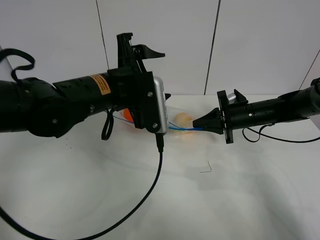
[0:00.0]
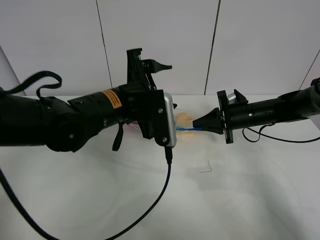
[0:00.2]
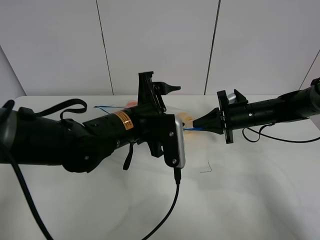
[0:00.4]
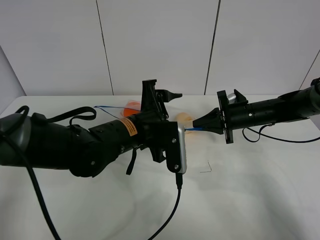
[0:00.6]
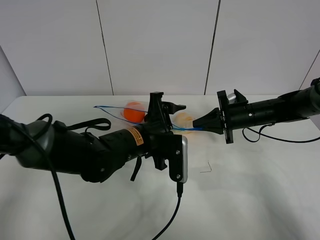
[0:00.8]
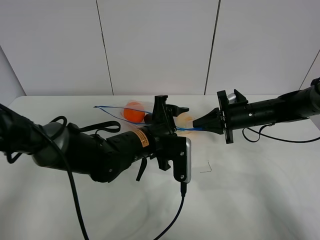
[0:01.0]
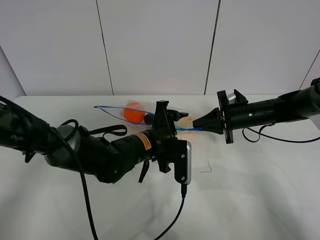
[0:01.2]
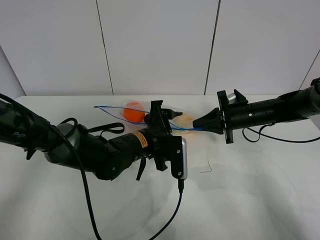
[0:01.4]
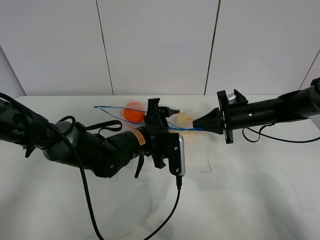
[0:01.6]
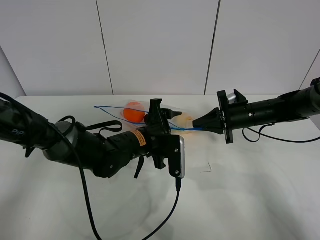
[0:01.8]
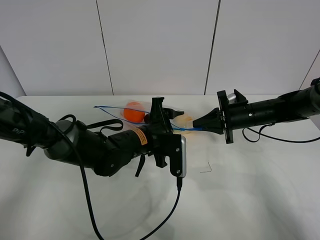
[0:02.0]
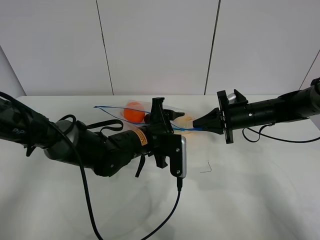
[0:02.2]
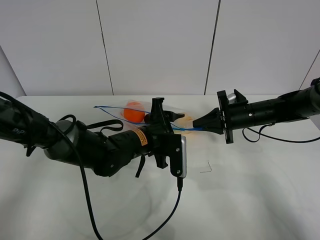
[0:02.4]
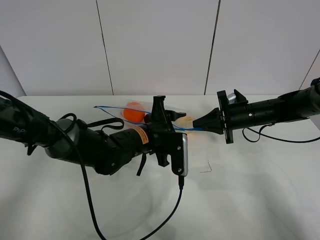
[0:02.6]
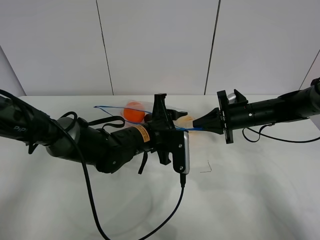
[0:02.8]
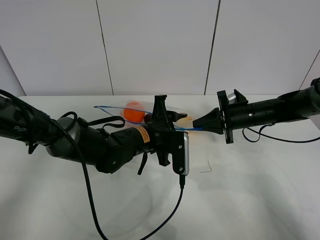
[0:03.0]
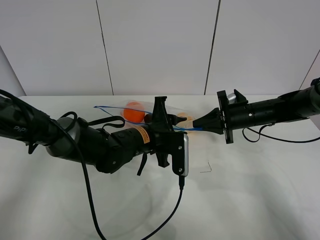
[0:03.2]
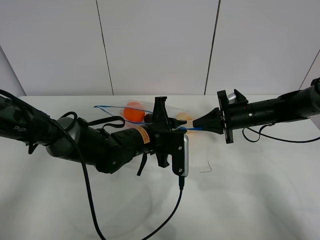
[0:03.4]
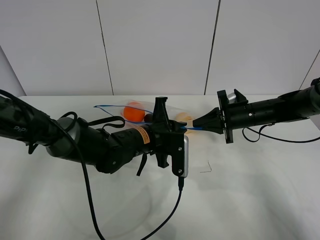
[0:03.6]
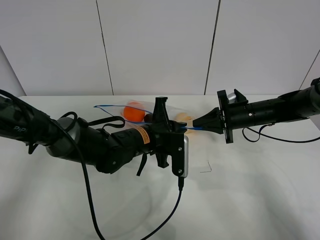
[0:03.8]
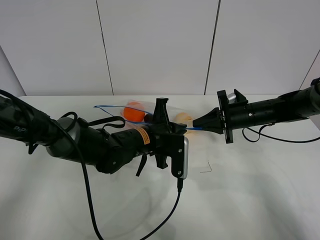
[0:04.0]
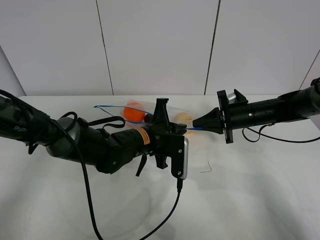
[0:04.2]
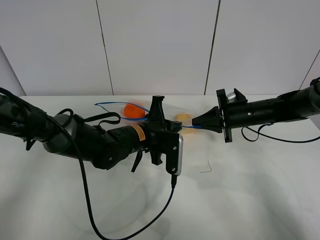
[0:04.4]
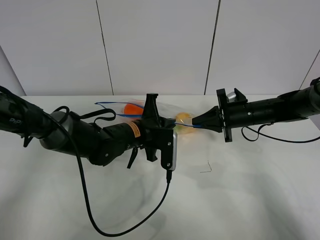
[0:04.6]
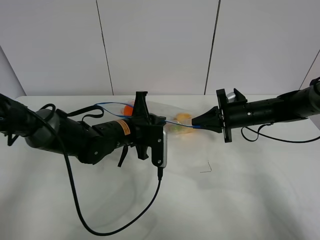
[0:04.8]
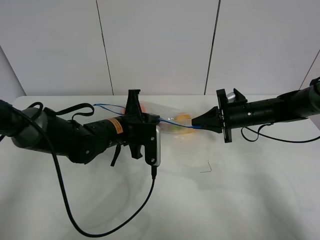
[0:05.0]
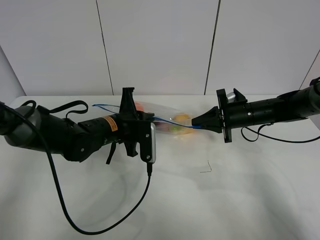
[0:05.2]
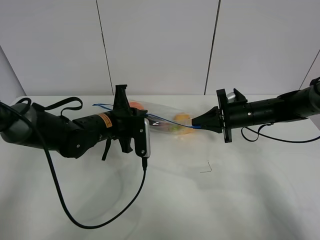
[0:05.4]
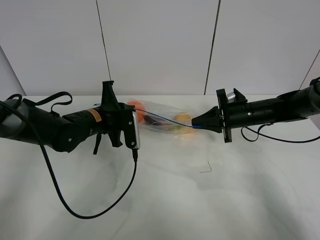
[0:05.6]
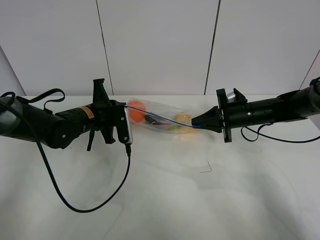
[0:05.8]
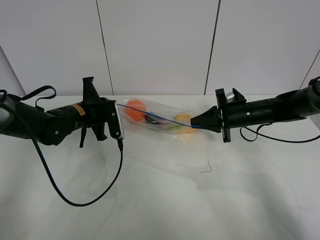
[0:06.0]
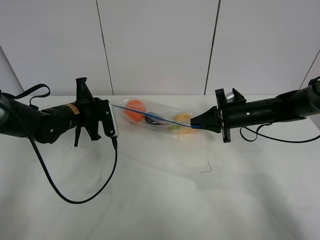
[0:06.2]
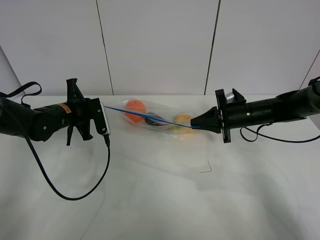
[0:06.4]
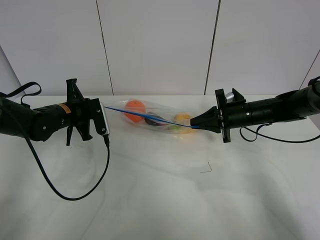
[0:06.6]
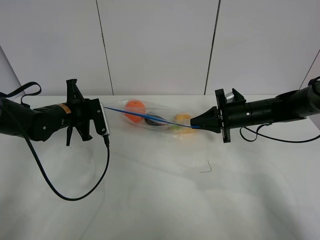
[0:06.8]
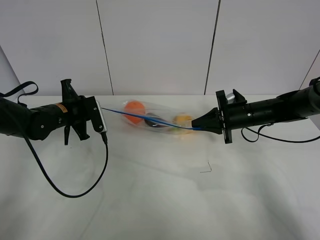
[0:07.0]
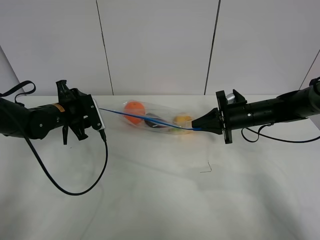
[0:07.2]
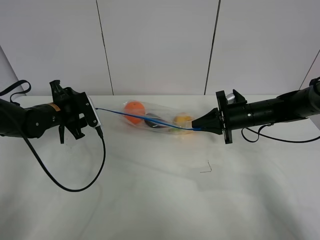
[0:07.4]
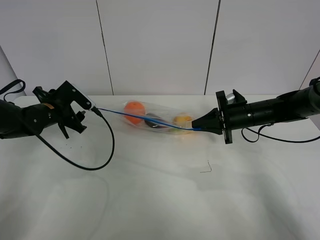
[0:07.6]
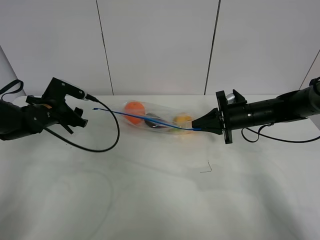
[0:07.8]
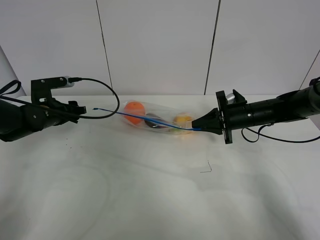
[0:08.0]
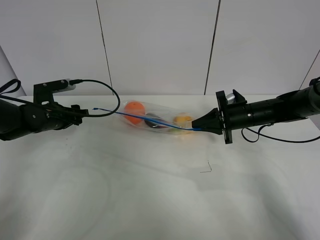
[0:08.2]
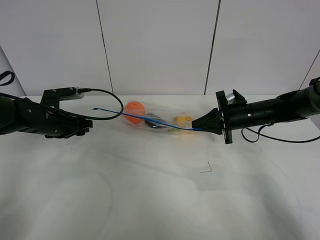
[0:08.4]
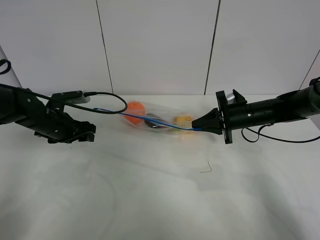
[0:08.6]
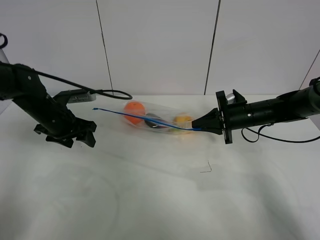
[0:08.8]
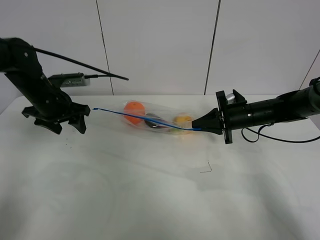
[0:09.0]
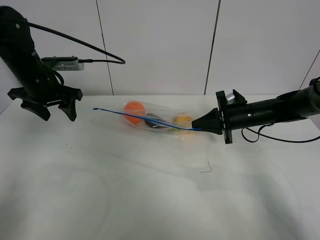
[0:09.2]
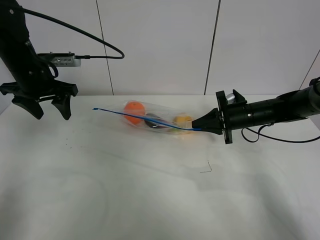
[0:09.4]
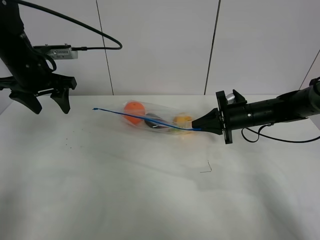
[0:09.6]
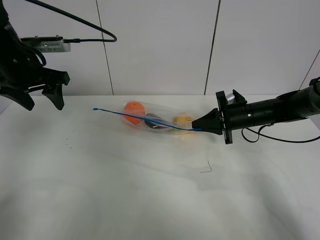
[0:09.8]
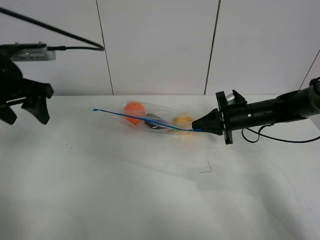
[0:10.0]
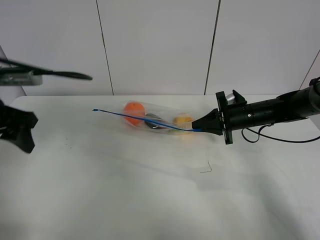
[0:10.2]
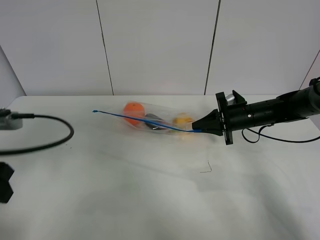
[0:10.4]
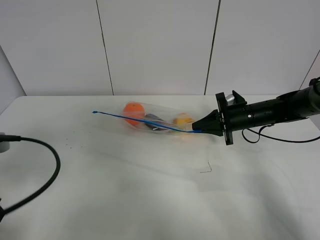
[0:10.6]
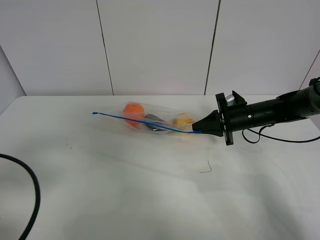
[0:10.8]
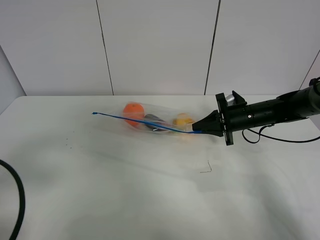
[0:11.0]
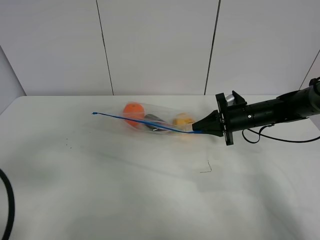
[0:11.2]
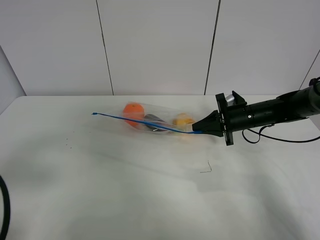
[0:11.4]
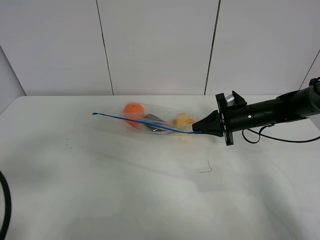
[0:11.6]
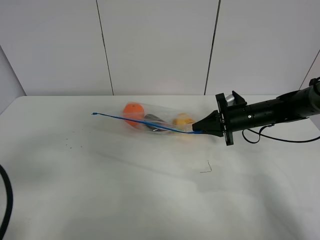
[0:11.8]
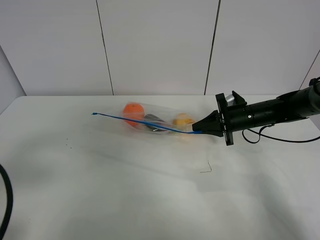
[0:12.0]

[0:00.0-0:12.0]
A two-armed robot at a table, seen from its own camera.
Step, 0:00.0 to 0:07.2: Pull the fruit bag with left gripper.
0:00.0 to 0:01.6: The left gripper shifts roughly 15 cm downward.
0:01.6 to 0:03.0: The left gripper closes its fingers.
0:03.0 to 0:04.4: The left gripper closes up.
0:04.4 to 0:06.0: The left gripper is displaced to the left by some 15 cm.
0:06.0 to 0:07.6: The left gripper heads to the left, covering some 10 cm, and opens its fingers.
0:07.6 to 0:09.0: The left gripper shifts some 5 cm upward.
0:09.0 to 0:10.4: The left gripper goes approximately 20 cm backward.
0:10.4 to 0:12.0: The left gripper heads backward, covering roughly 10 cm.

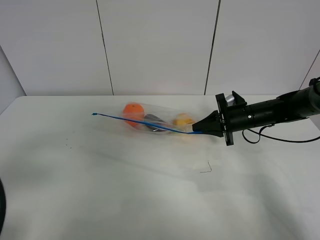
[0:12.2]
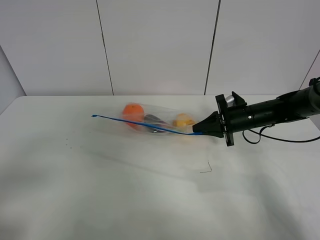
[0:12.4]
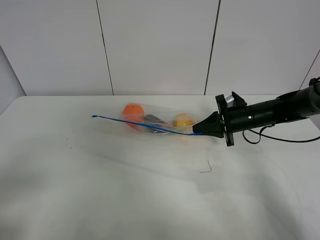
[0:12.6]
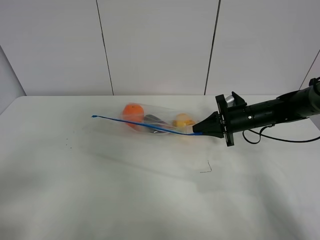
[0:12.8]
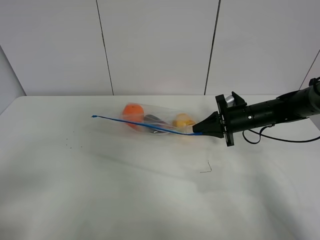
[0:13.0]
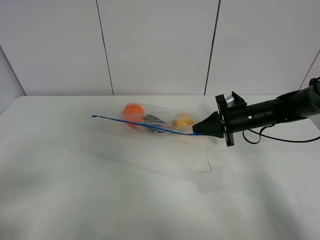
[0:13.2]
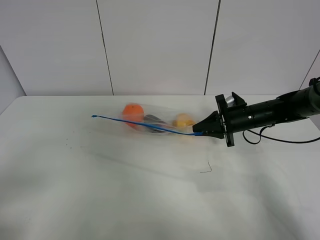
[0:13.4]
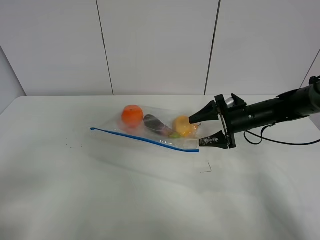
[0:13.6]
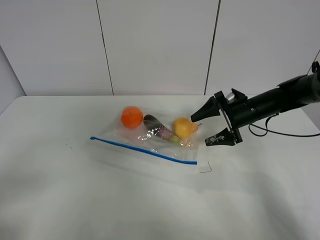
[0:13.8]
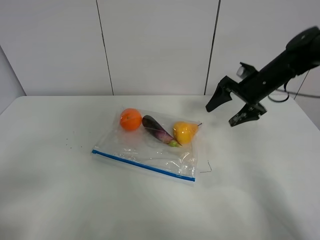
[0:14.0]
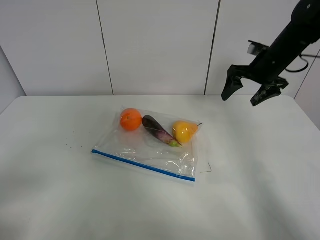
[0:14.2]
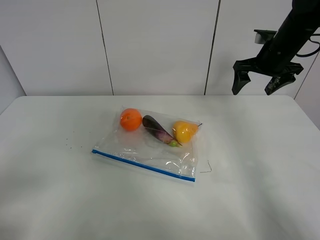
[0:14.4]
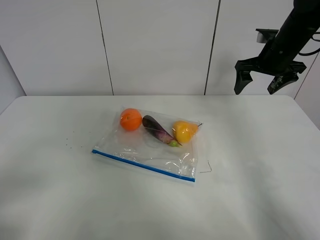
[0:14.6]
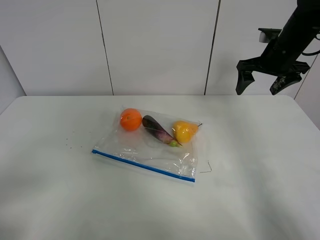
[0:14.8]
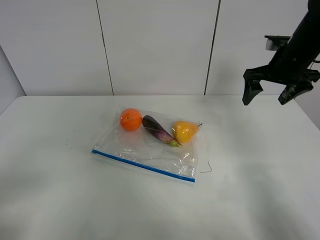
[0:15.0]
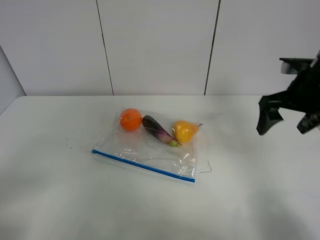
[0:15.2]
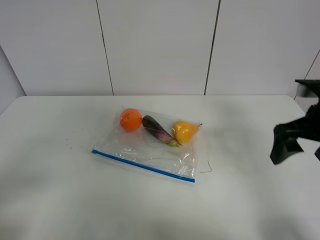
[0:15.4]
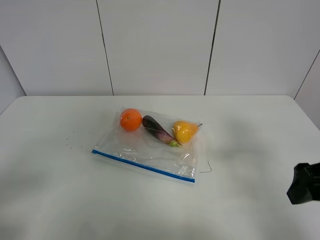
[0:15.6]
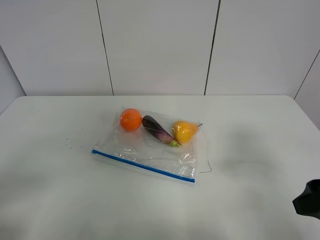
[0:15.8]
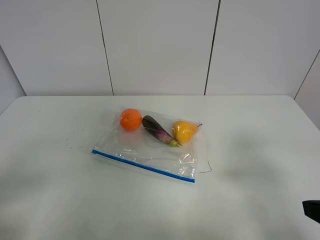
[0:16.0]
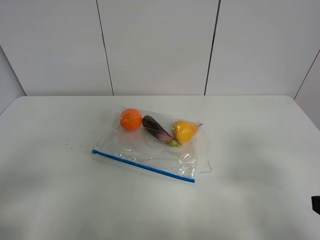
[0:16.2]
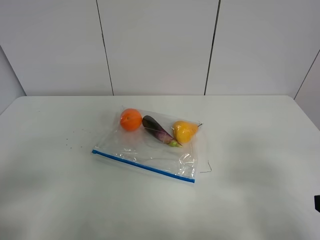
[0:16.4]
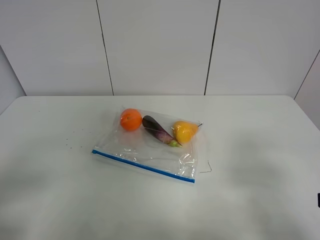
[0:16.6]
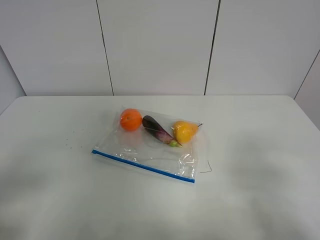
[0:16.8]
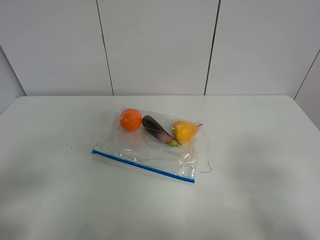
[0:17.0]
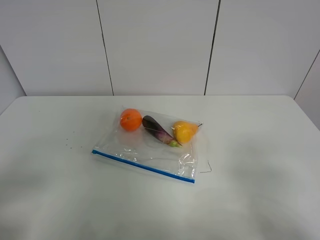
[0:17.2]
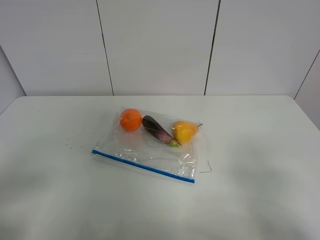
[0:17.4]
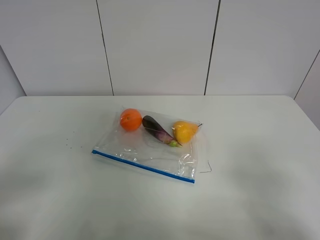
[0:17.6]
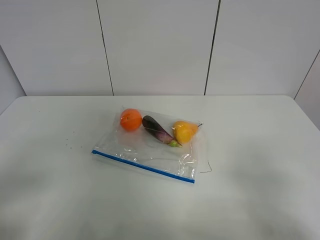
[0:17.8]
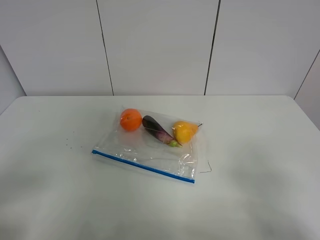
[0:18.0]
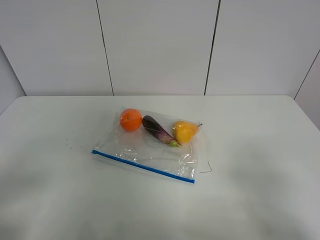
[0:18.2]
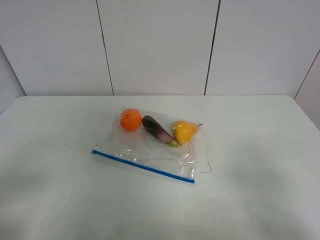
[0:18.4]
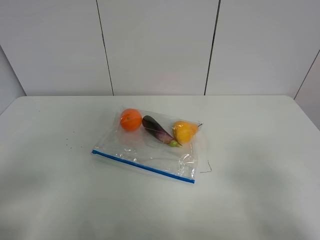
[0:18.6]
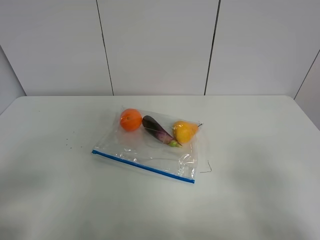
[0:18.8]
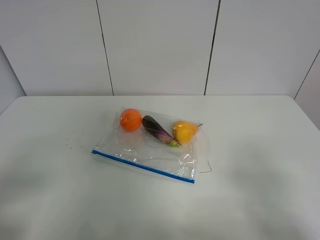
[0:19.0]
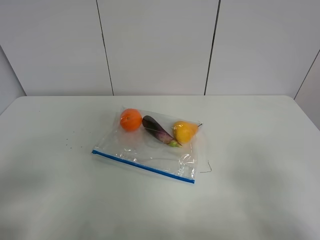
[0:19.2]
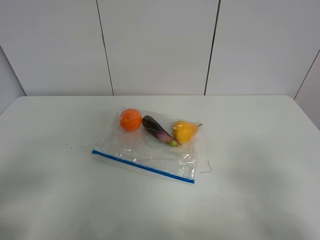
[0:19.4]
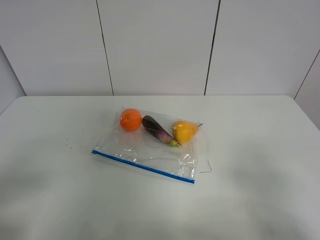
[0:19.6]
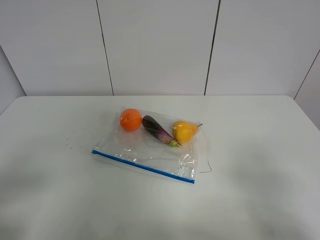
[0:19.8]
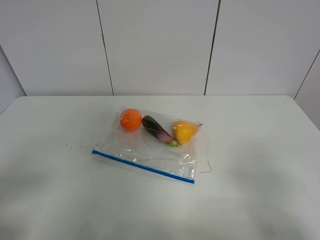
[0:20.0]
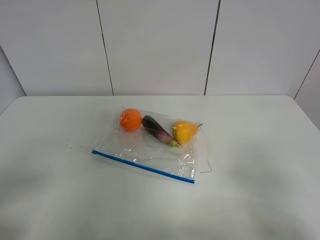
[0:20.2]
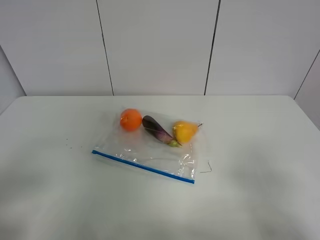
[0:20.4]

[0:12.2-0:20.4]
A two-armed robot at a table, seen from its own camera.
0:12.2 to 0:13.8: The right gripper opens up. Meanwhile the left gripper shifts approximately 5 cm backward.
0:13.8 to 0:15.4: The right gripper goes roughly 20 cm backward and upward.
0:15.4 to 0:17.2: The right gripper heads backward, covering roughly 20 cm.
0:18.8 to 0:20.4: Both grippers stay put.

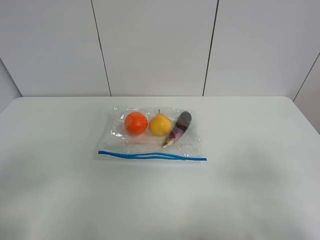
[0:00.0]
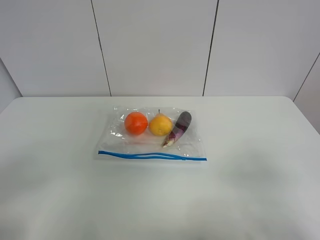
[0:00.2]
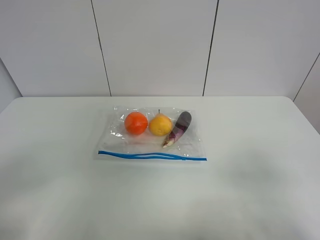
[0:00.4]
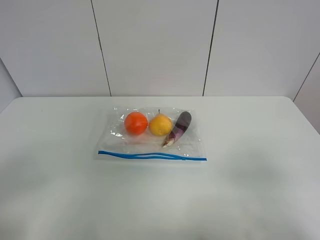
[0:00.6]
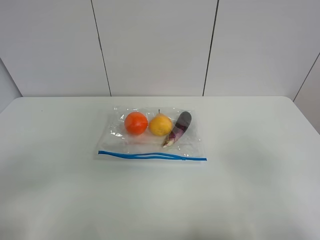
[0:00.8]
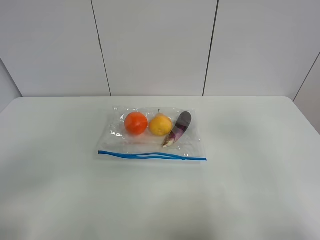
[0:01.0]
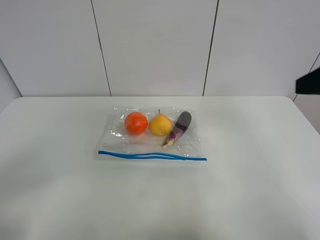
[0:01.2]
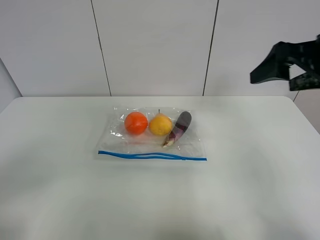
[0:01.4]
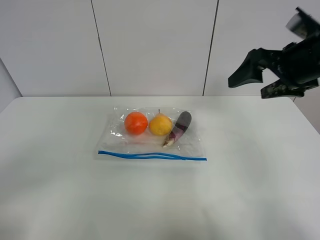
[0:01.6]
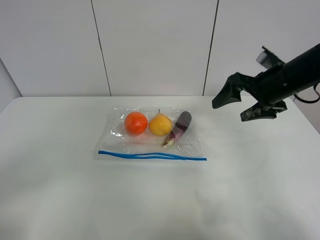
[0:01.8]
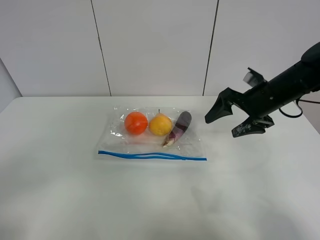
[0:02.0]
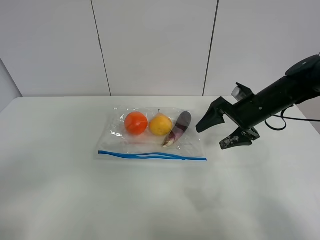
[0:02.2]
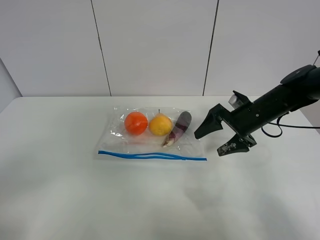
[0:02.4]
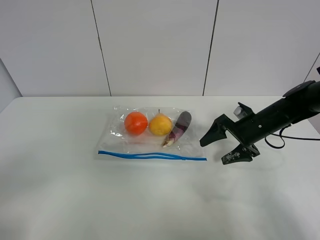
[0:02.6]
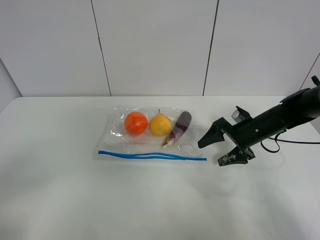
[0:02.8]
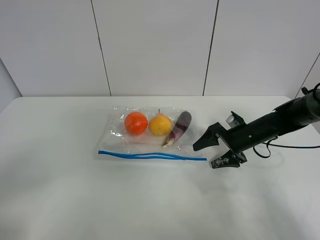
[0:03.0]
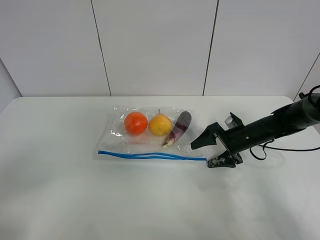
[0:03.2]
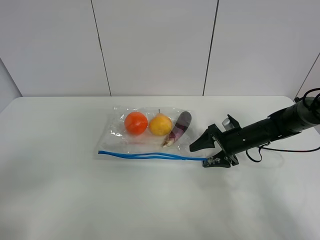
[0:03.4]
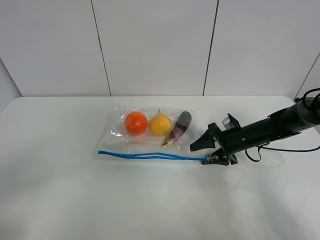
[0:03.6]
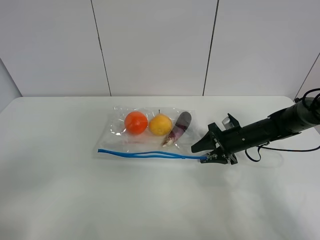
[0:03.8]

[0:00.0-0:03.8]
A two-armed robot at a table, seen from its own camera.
0:00.0 to 0:01.2: The right gripper moves forward and upward, some 20 cm.
0:01.2 to 0:02.6: The right gripper goes approximately 30 cm downward and forward.
0:02.6 to 0:03.8: The right gripper is displaced downward by some 5 cm, and closes.
